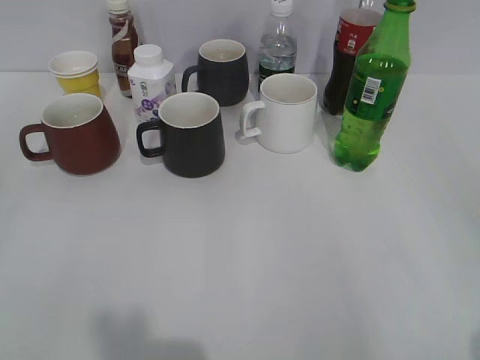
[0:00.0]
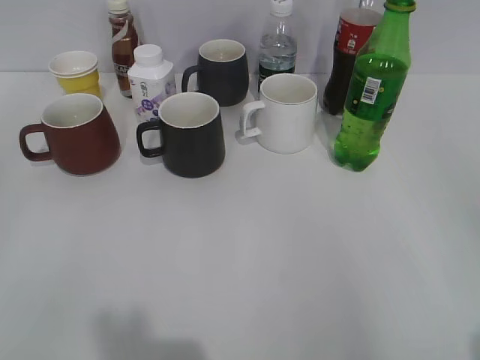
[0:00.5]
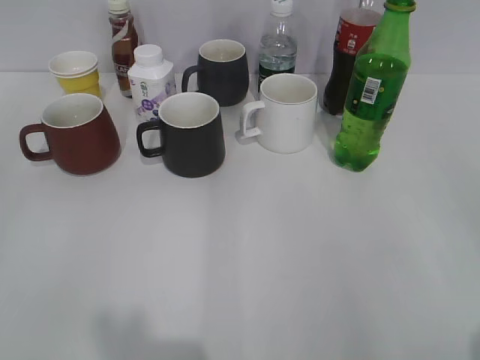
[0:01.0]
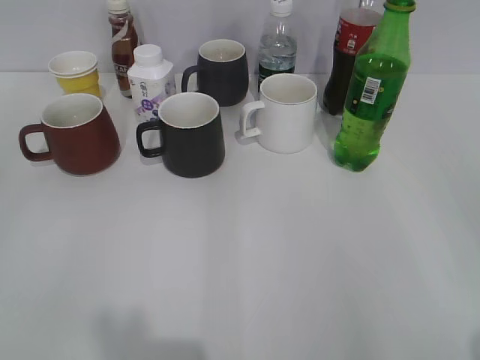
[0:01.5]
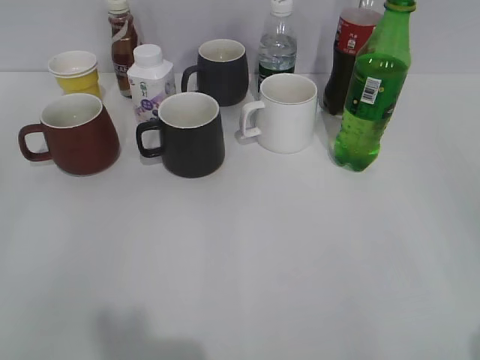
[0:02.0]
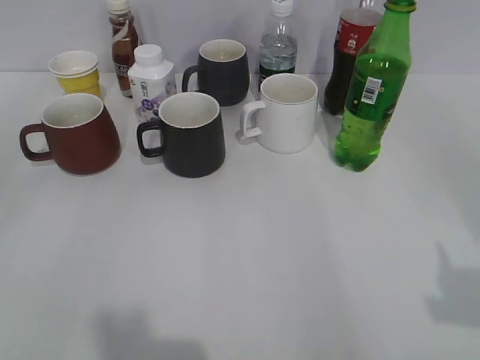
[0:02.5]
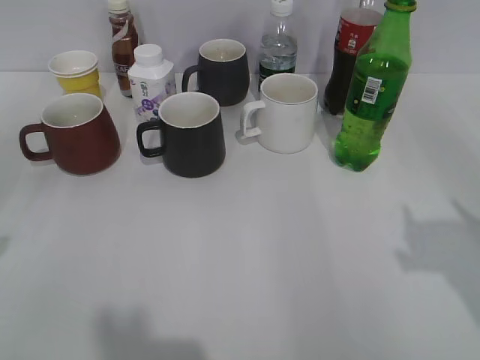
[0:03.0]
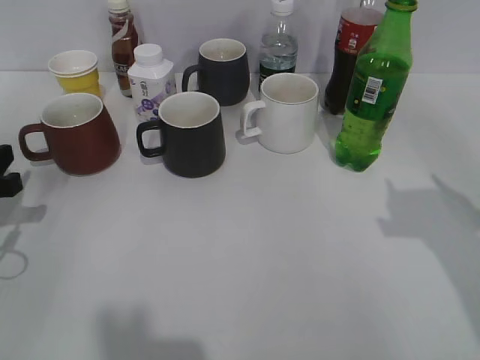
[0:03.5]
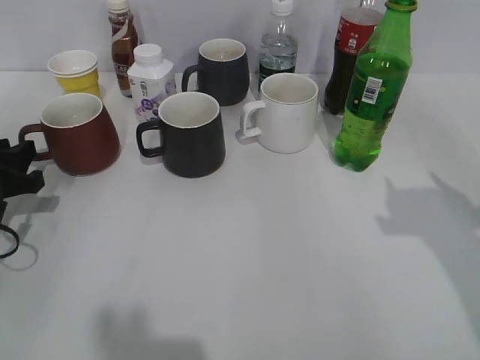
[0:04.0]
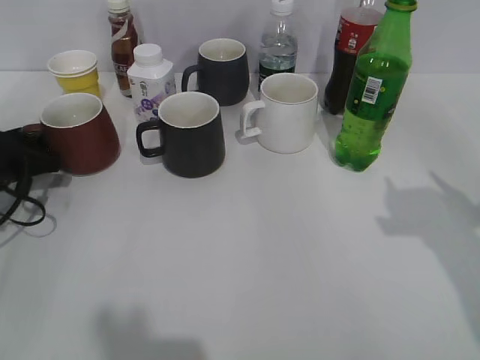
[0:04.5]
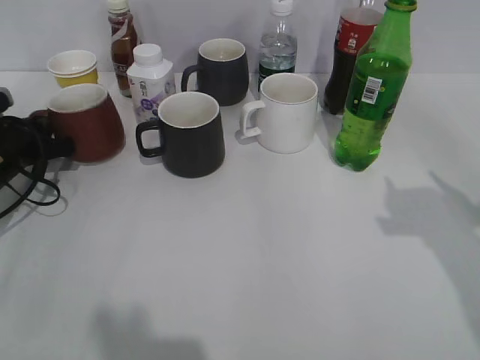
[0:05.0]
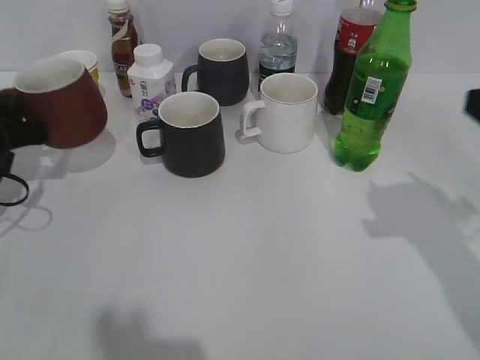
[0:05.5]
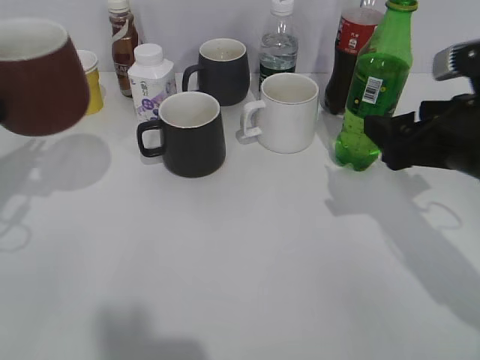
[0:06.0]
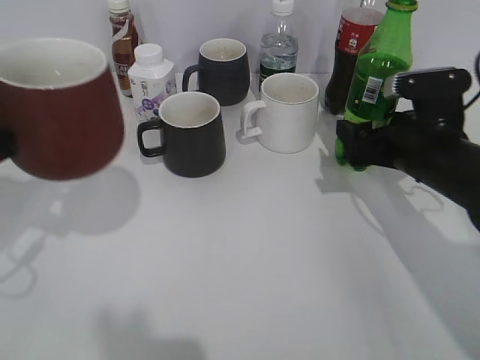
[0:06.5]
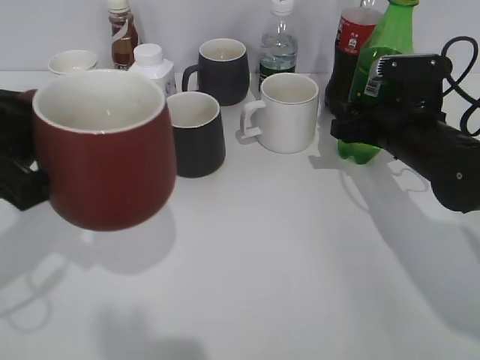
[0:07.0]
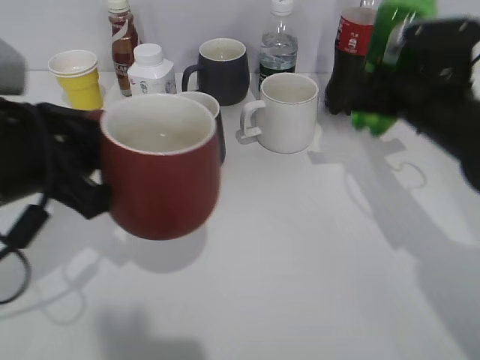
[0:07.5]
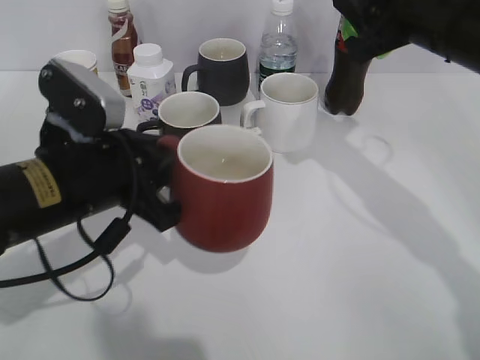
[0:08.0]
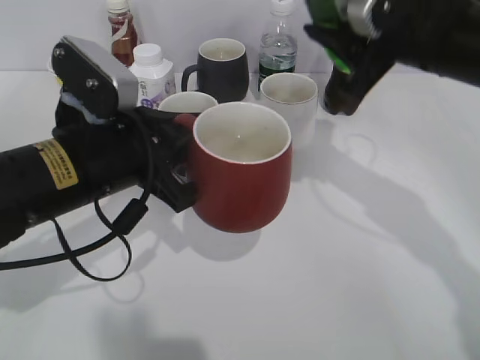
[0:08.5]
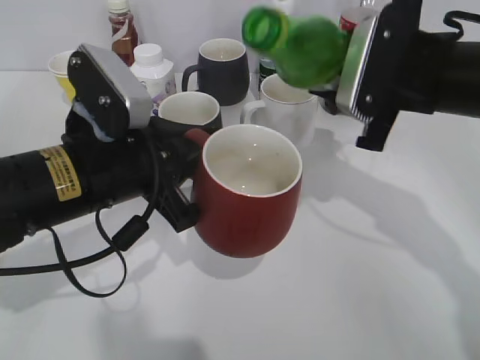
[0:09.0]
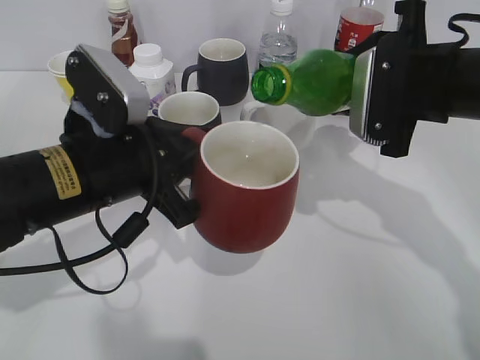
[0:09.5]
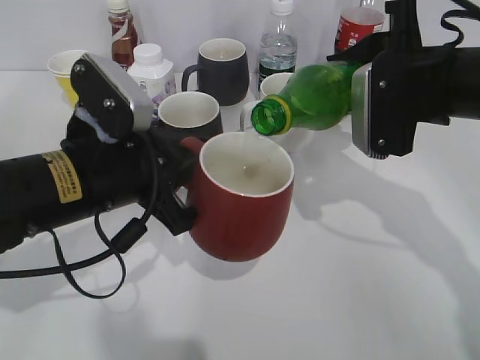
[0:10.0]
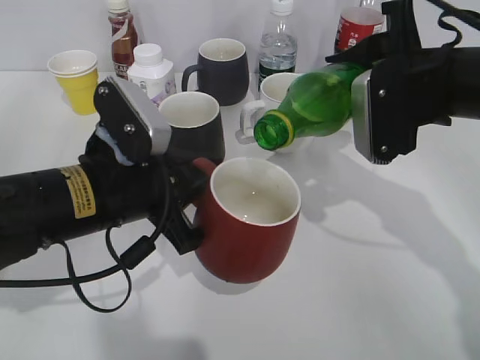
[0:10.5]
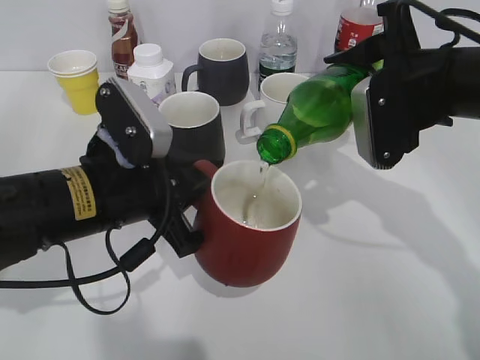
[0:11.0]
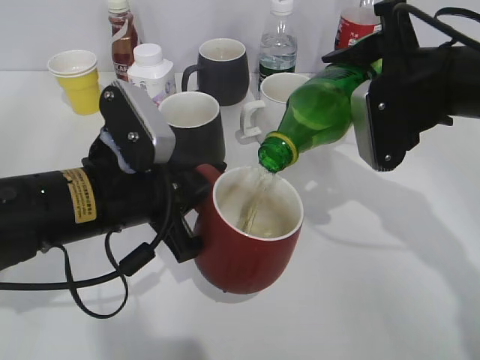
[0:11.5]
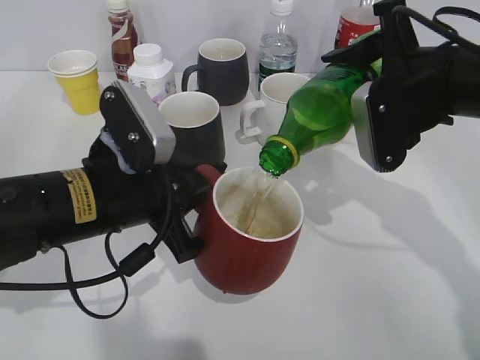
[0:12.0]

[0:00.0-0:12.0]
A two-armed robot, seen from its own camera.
Step, 0:02.0 to 0:05.0: Grasp the red cup with left gripper.
Step, 0:05.5 to 0:07.0: Grasp the bottle with sprite with right gripper.
0:02.0 to 0:04.0: The left gripper moves forward and downward, some 30 cm. Meanwhile the right gripper heads forward, covering about 15 cm.
0:04.0 to 0:06.0: The right gripper is displaced downward, forward and to the left by some 10 cm, and opens up. Meanwhile the left gripper moves upward, some 10 cm, and closes its fingers.
0:06.0 to 0:08.0: The right gripper goes approximately 10 cm upward and forward, and closes its fingers. The left gripper goes about 15 cm to the right.

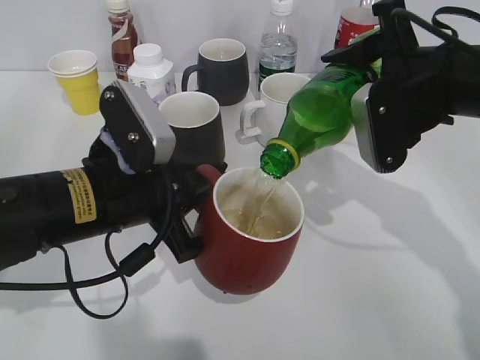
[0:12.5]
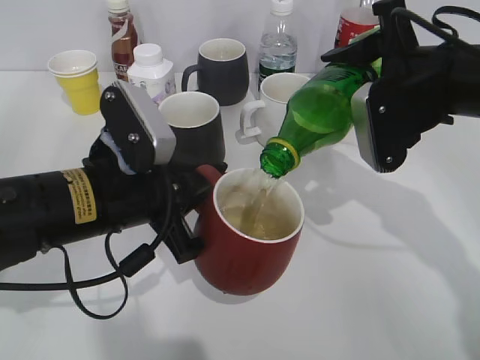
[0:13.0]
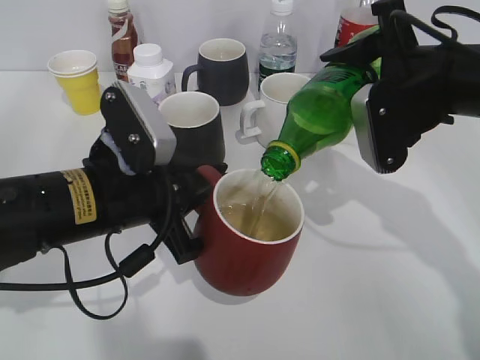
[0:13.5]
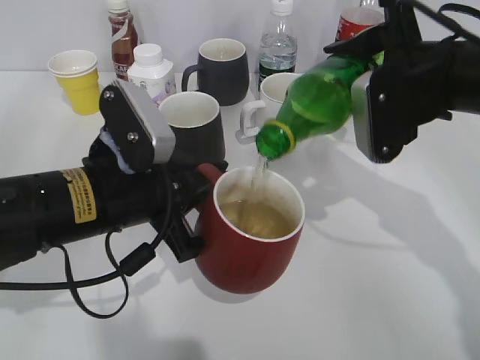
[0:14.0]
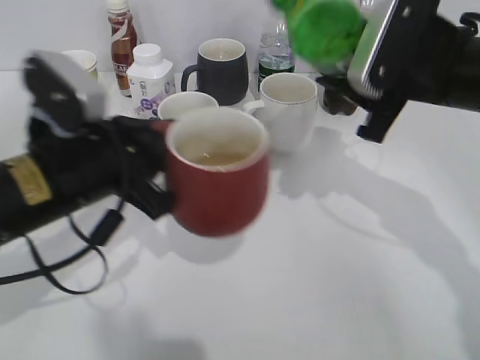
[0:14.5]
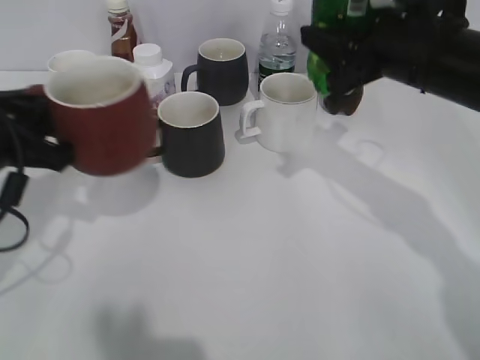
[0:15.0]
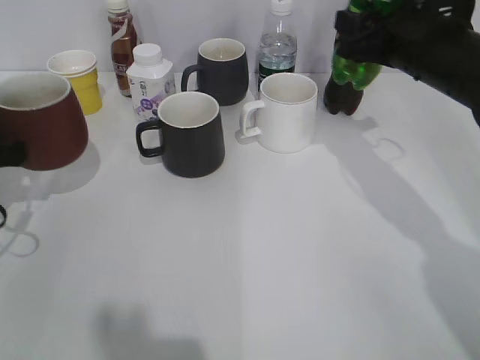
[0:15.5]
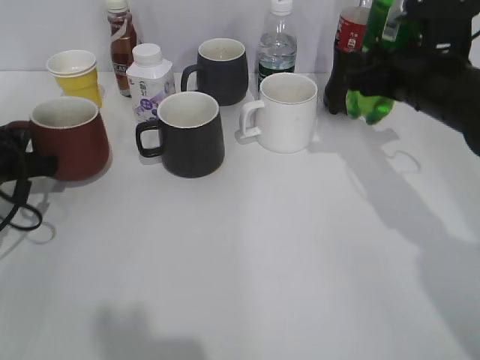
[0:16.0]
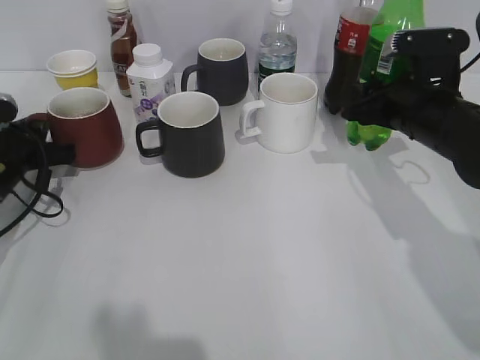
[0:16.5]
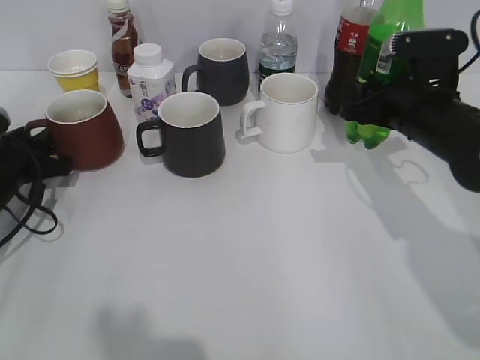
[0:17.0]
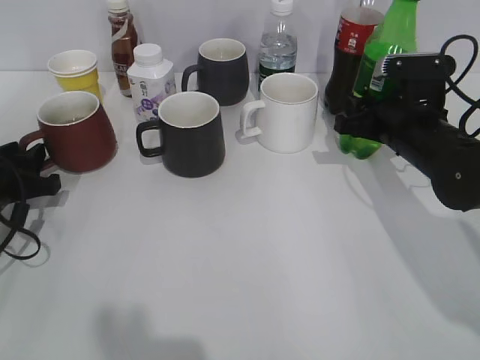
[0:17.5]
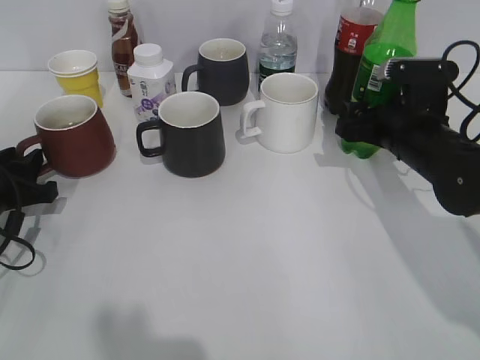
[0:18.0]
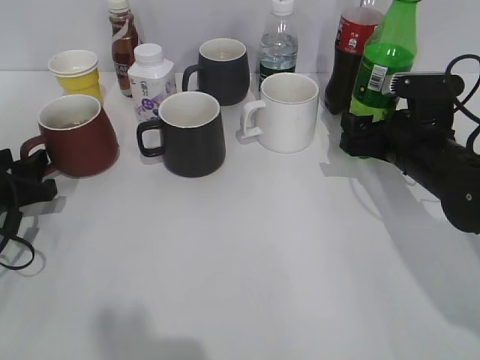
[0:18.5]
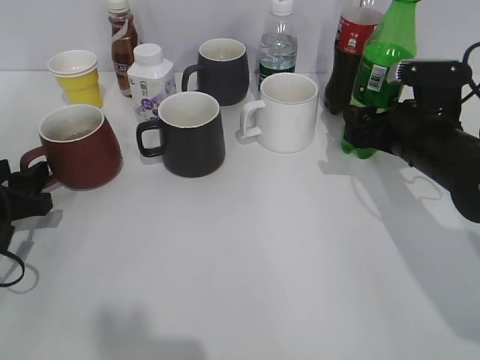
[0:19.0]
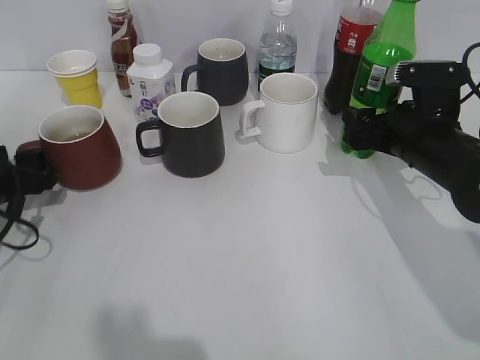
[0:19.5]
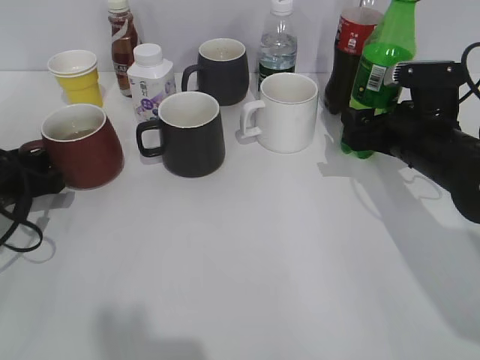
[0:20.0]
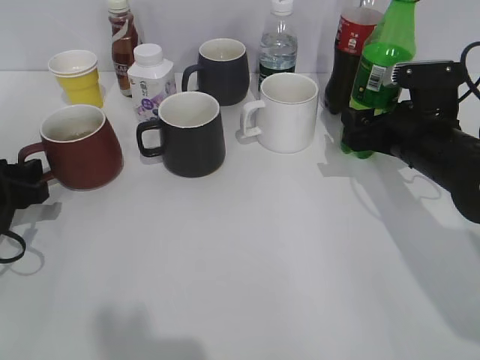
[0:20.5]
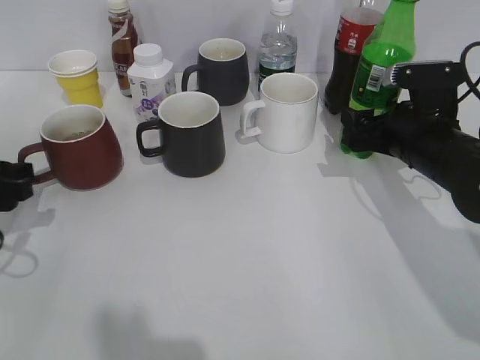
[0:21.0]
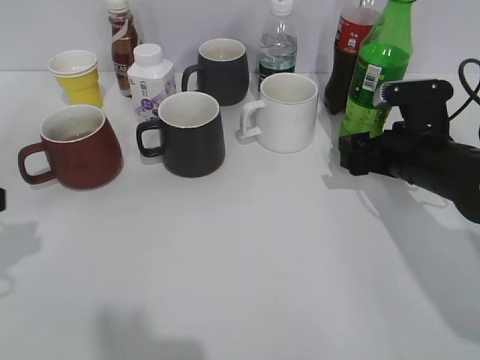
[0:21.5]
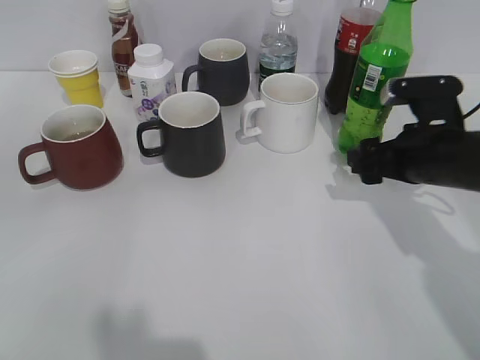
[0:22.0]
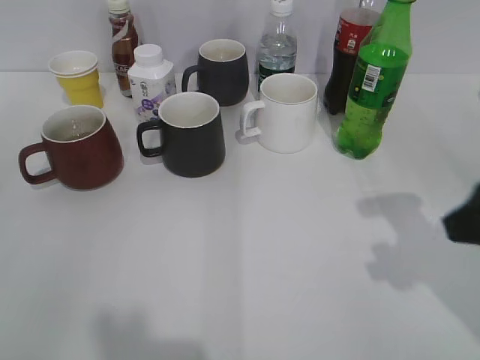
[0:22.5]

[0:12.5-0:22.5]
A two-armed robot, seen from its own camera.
Step, 0:14.5 to 0:20.5: Place the red cup on the table with left gripper.
0:14.5 to 0:16.5: The right gripper shifts some 10 cm downward, while the left gripper travels to the left, forward and downward by roughly 20 cm.
0:16.5 to 0:18.5: The left gripper is displaced backward by some 5 cm, and opens; the right gripper opens.
0:18.5 to 0:20.5: The grippers stay close to where they were, moving slightly.
0:20.5 to 0:22.5: The right gripper heads backward and upward, covering roughly 20 cm, while the left gripper shifts some 30 cm backward and upward.

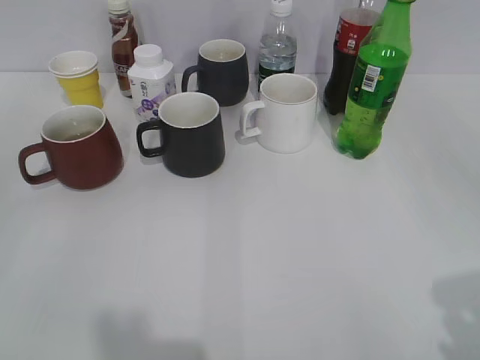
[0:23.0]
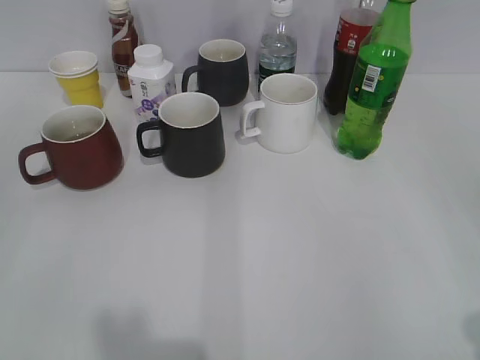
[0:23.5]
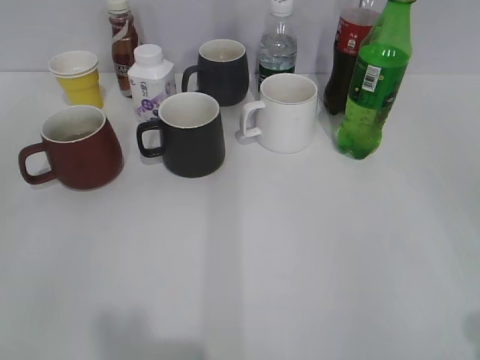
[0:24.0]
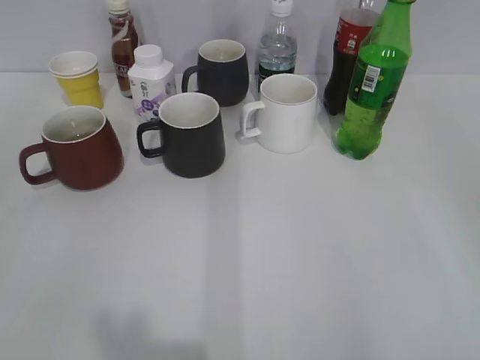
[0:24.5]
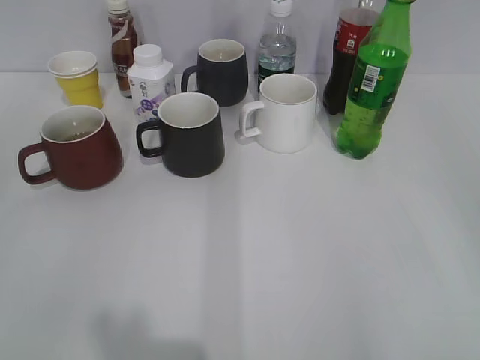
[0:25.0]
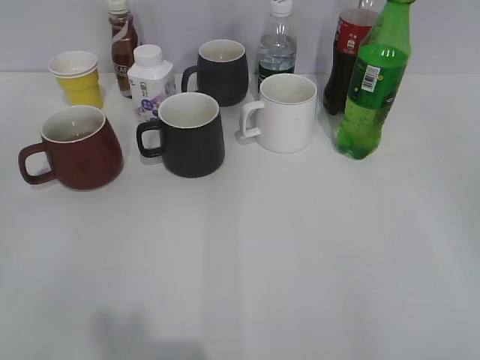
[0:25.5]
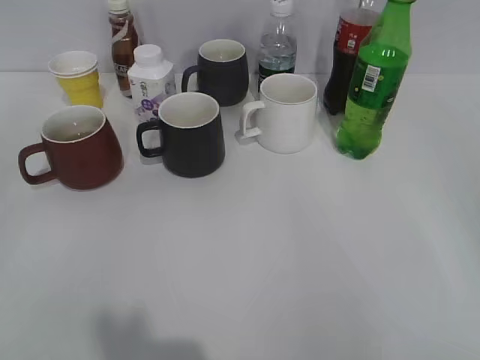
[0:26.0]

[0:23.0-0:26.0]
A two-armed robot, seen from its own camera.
0:24.5 to 0:26.0: Both grippers stay put.
